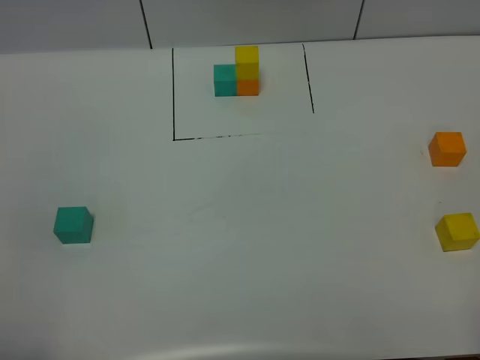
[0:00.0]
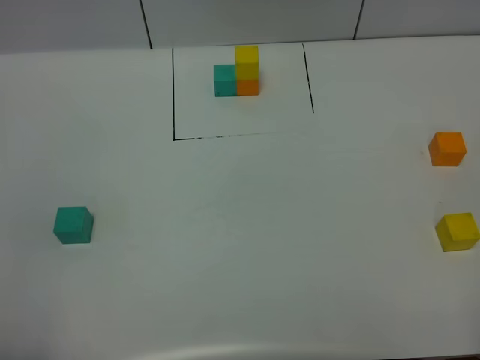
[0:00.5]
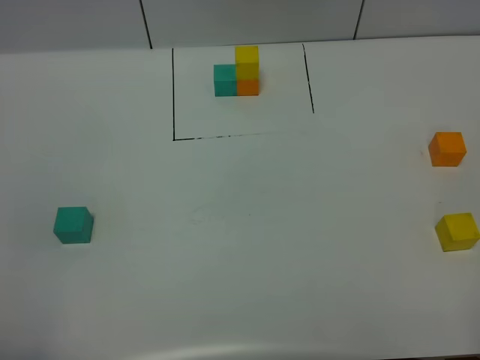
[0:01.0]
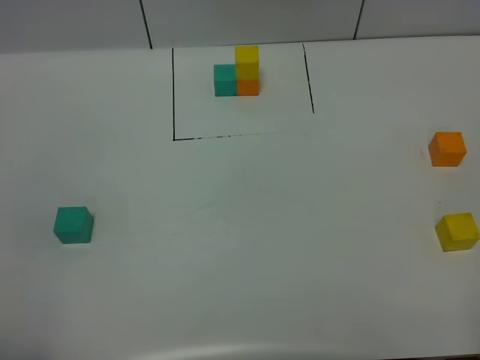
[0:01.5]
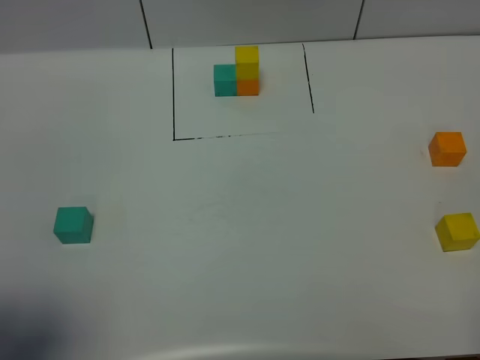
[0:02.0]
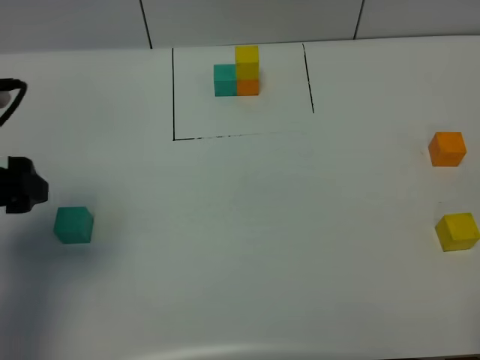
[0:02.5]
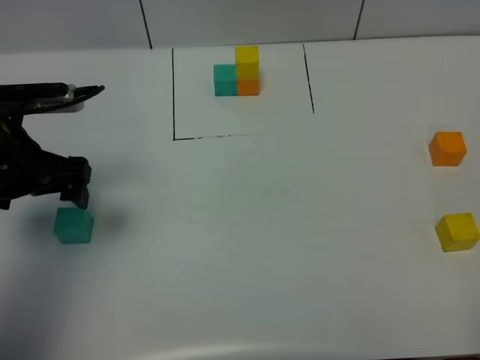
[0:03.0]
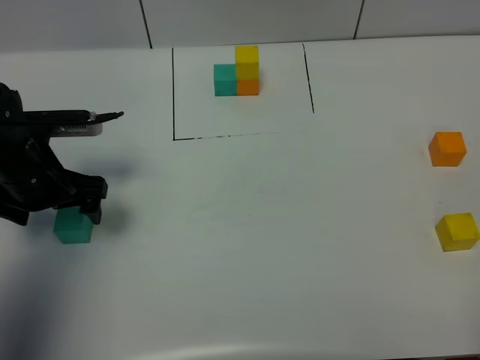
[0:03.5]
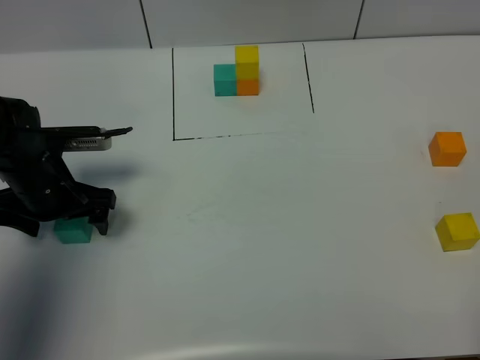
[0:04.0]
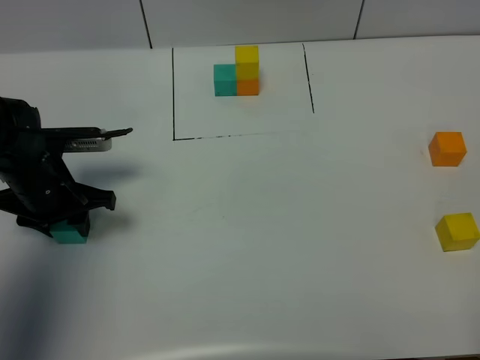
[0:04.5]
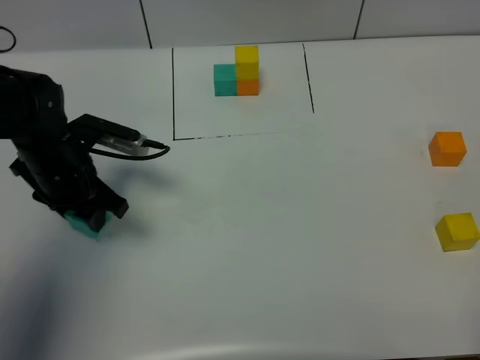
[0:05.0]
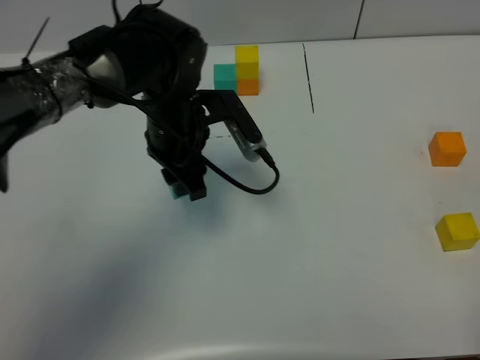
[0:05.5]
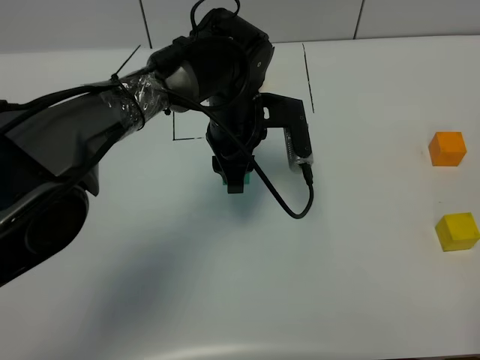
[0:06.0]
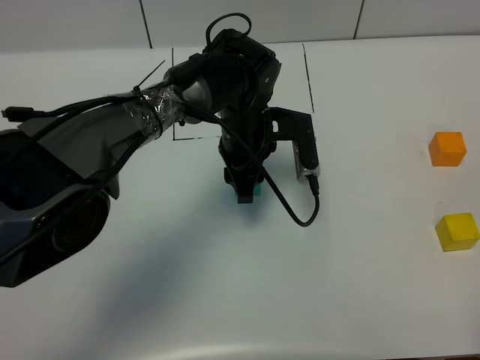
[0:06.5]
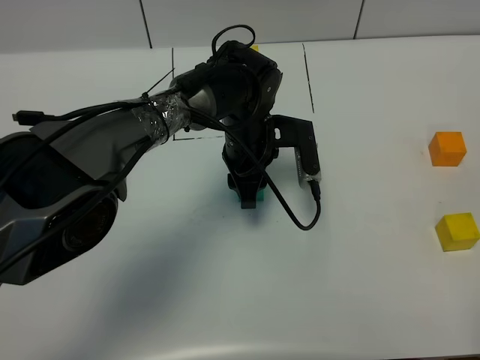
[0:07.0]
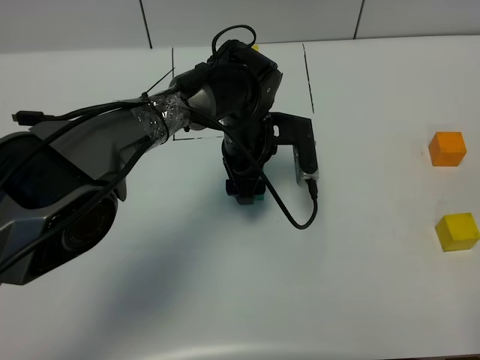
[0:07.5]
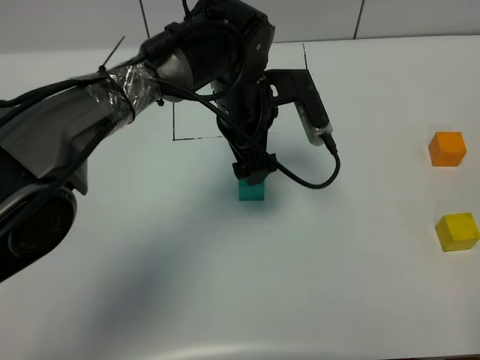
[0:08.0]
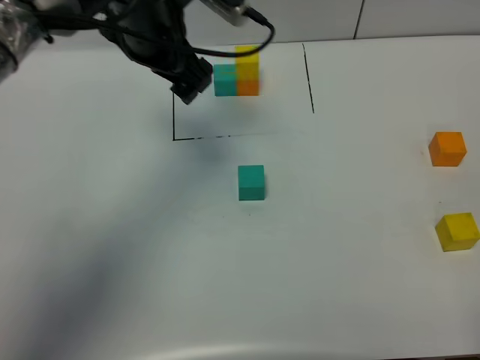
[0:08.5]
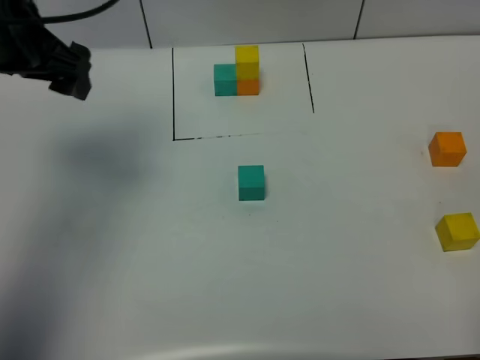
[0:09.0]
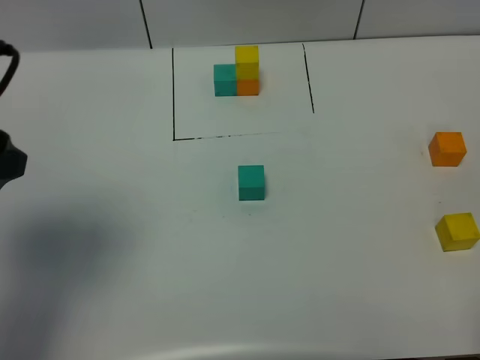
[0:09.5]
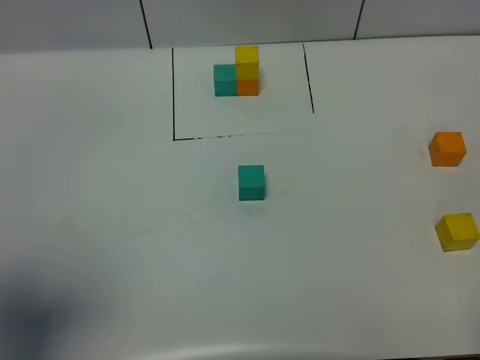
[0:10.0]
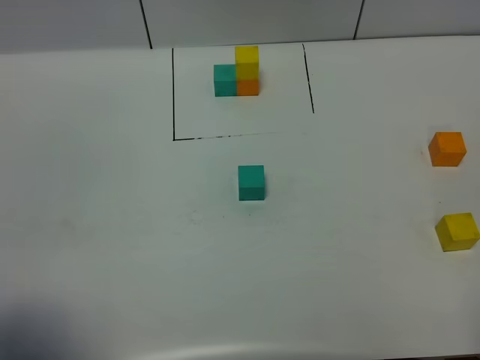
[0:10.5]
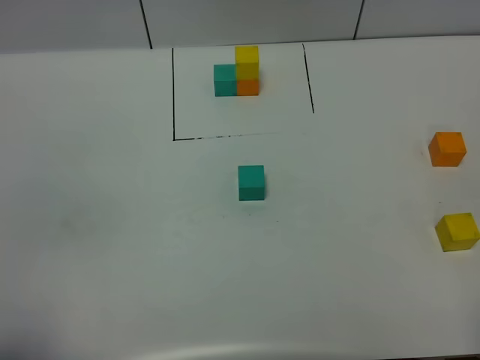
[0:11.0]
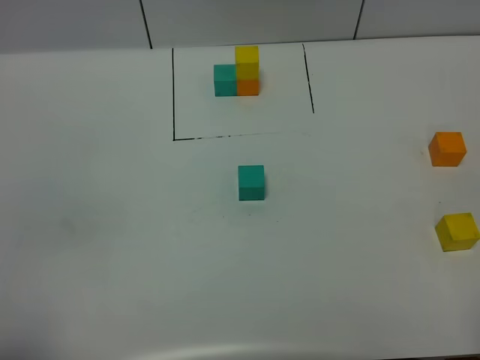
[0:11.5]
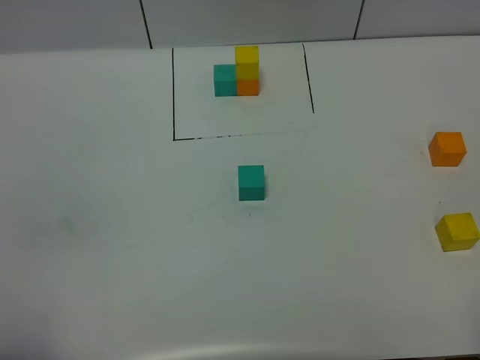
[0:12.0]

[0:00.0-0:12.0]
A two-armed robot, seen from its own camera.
Task of the whole recording: According to the building block template in front, assemble the scattered blocks together.
Step, 0:02.5 to 0:07.5: Put the green cube in the center of the table.
0:00.0 to 0:02.0: The left gripper travels forward by some 10 cm.
0:02.0 to 0:04.0: The left gripper travels forward and downward by approximately 30 cm.
0:04.0 to 0:06.0: The left gripper moves to the right, some 25 cm, and closes.
0:06.0 to 0:08.0: The left gripper opens its fingers.
0:08.0 to 0:10.0: The left gripper is displaced to the left, backward and upward by about 40 cm.
0:10.0 to 0:12.0: The left gripper travels backward and downward by roughly 10 cm, and closes up.

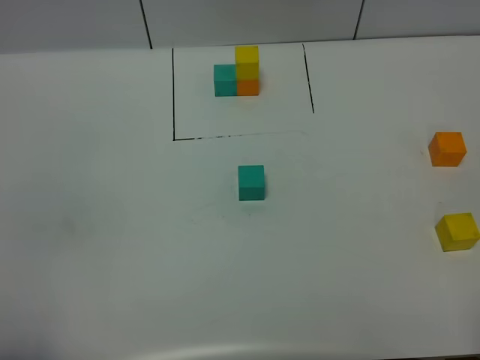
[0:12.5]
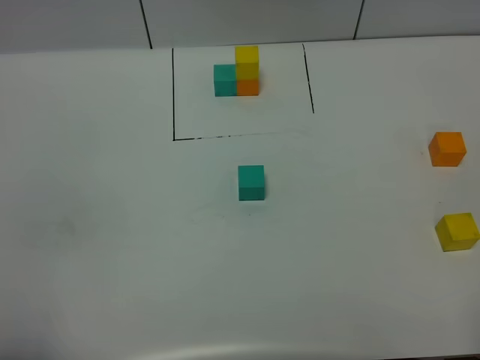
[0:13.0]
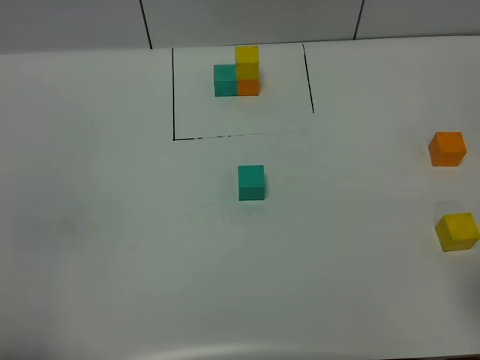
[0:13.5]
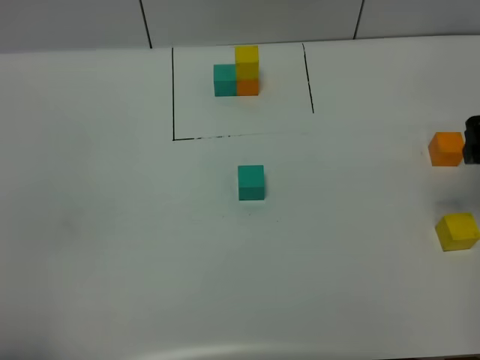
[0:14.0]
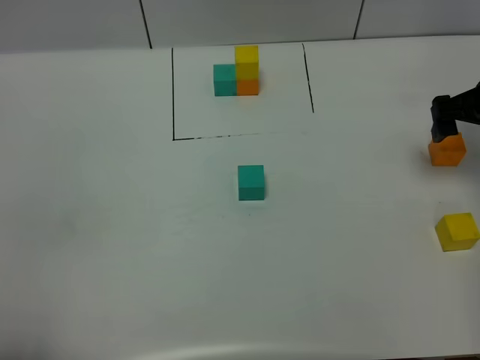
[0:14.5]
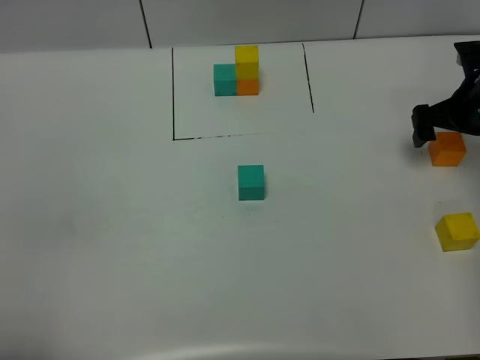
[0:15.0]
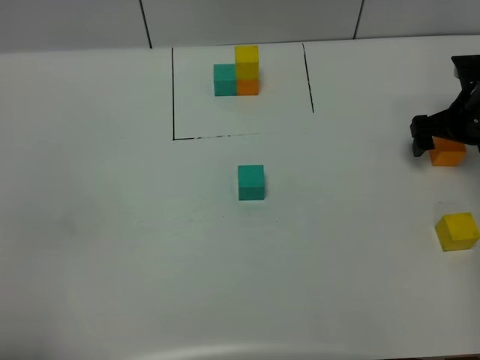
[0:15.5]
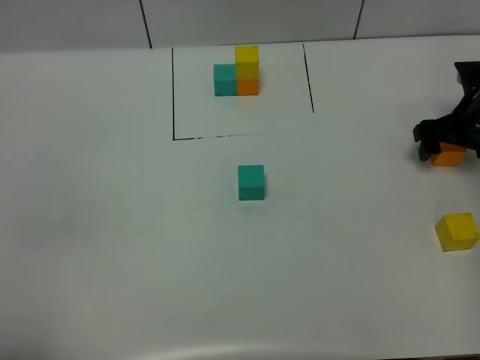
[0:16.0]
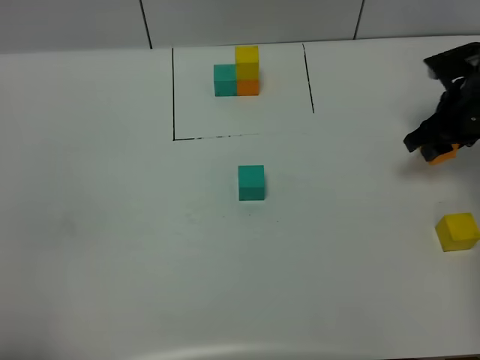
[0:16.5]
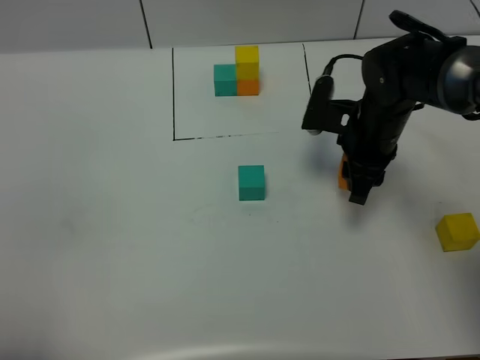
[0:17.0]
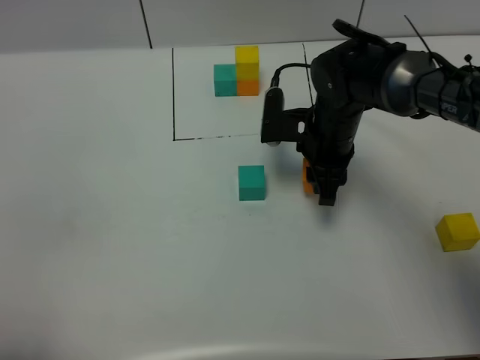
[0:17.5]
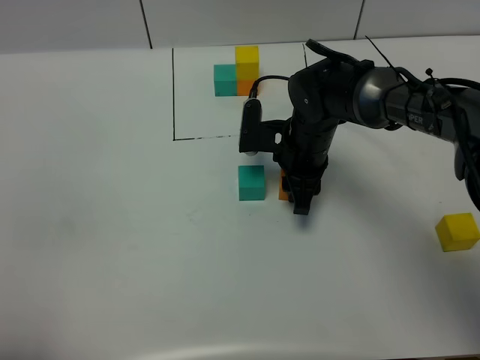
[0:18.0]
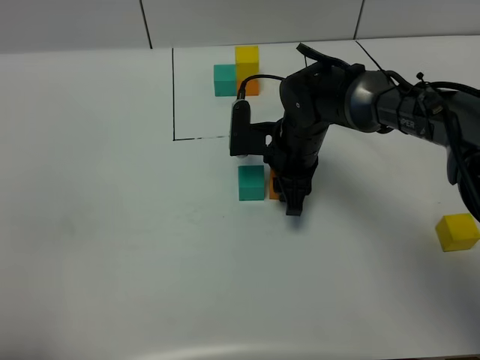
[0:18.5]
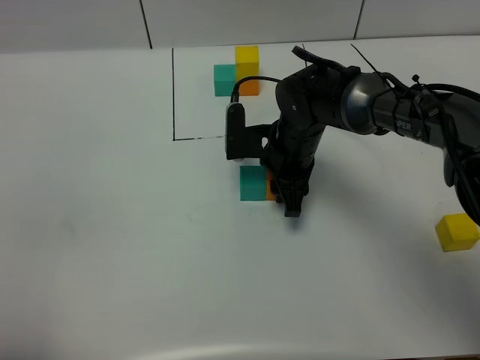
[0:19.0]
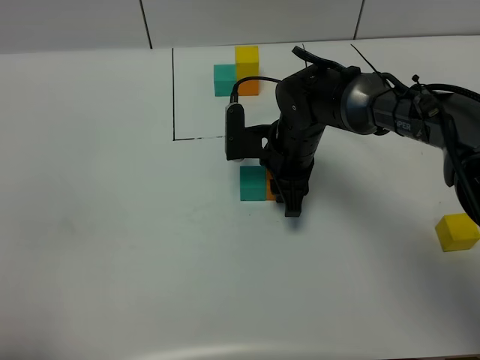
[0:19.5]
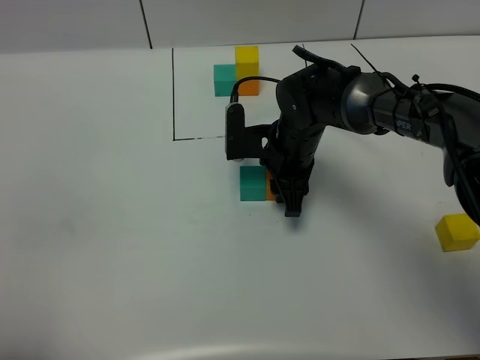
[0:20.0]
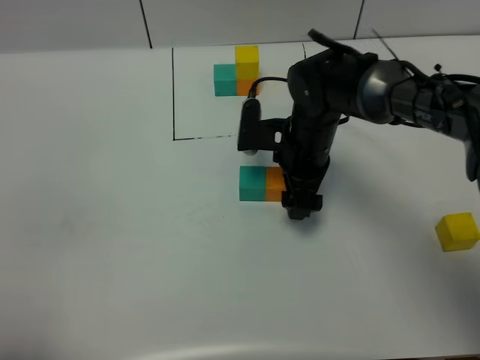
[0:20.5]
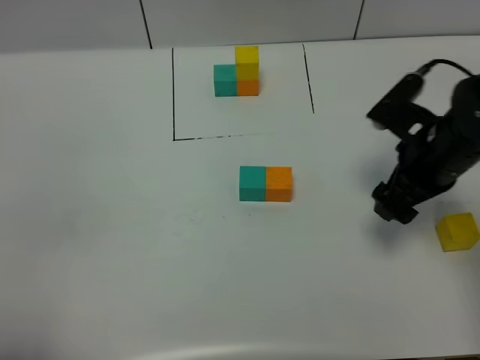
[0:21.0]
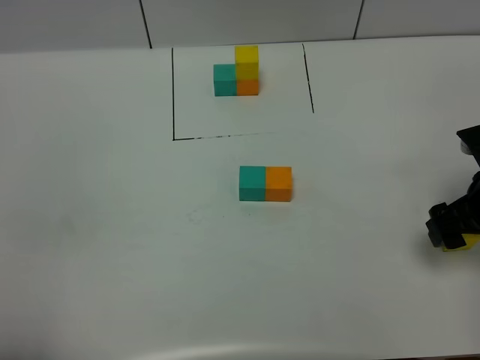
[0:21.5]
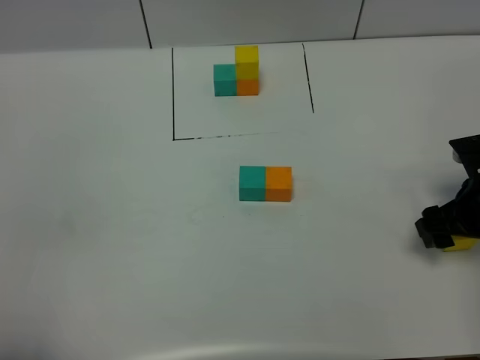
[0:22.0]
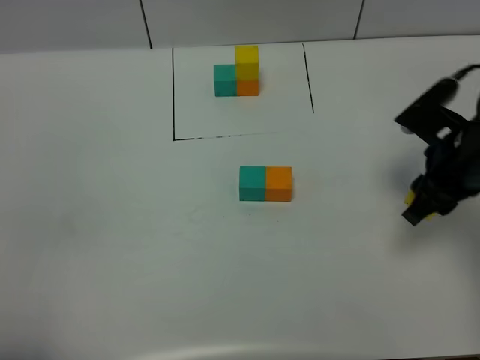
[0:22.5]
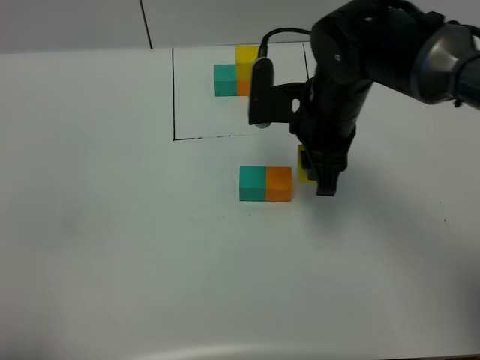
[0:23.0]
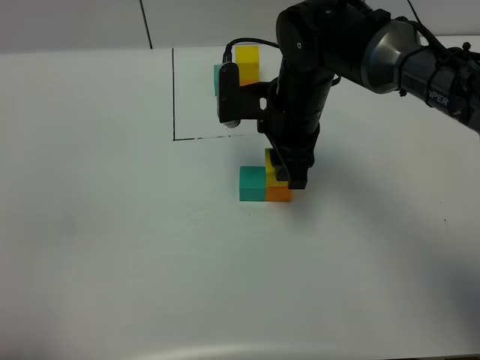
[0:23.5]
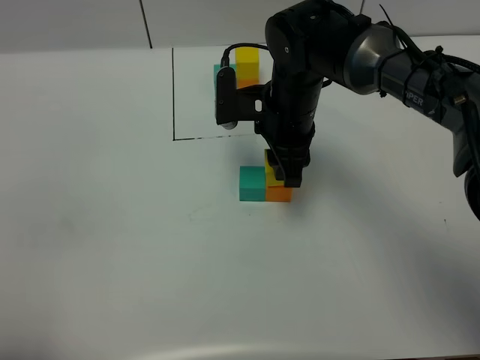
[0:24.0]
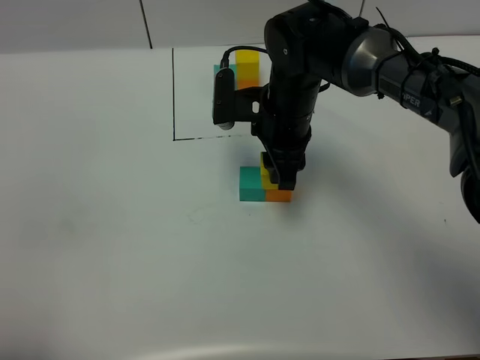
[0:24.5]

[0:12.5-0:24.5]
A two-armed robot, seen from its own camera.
Task of the whole recording: According to the building block template in front, assemble the scattered blocks together.
Step, 0:12.5 to 0:20.0: Put the orange cube on the right of the green cube.
0:12.5 to 0:14.5: The right gripper shifts roughly 40 cm forward.
0:14.5 to 0:16.5: The right gripper ends up roughly 5 cm from where it was, and closes its fingers.
0:16.5 to 0:18.5: The right gripper travels to the left by about 20 cm.
0:18.5 to 0:20.5: The right gripper opens its fingers.
0:20.5 to 0:22.5: The right gripper travels to the right, backward and upward by roughly 15 cm, and closes its fingers.
0:22.5 to 0:24.5: The right gripper shifts some 20 cm to the left and forward.

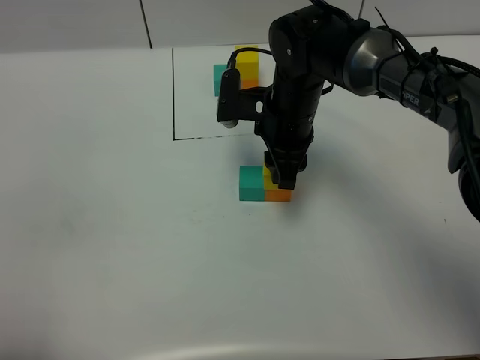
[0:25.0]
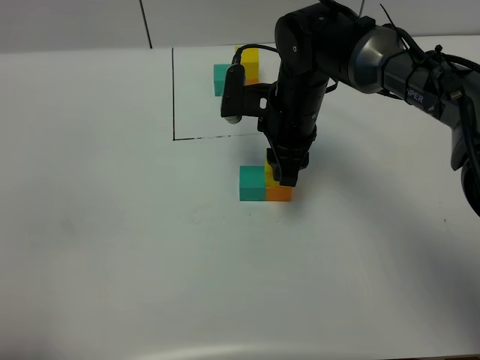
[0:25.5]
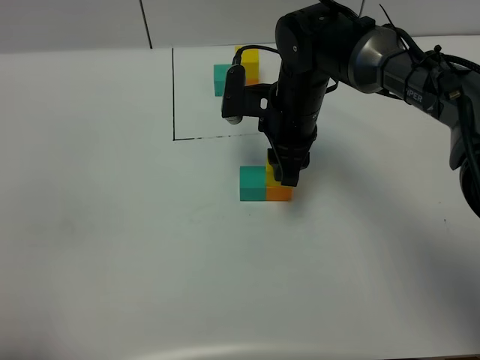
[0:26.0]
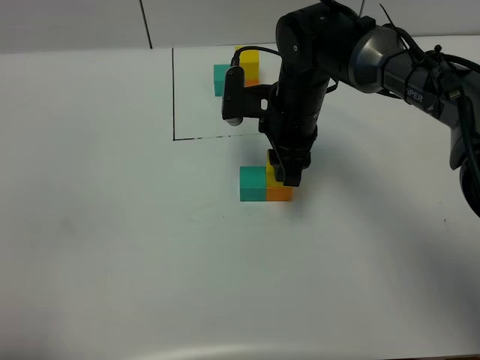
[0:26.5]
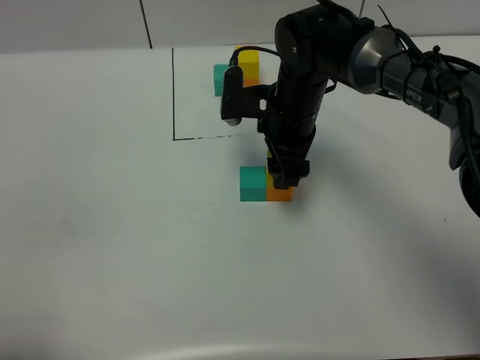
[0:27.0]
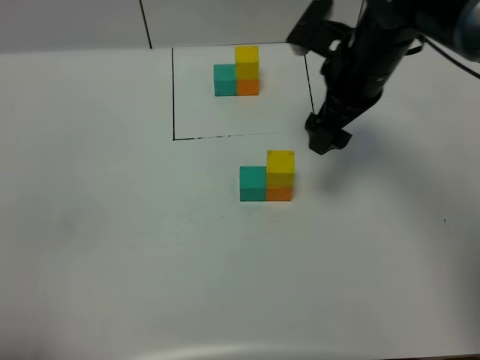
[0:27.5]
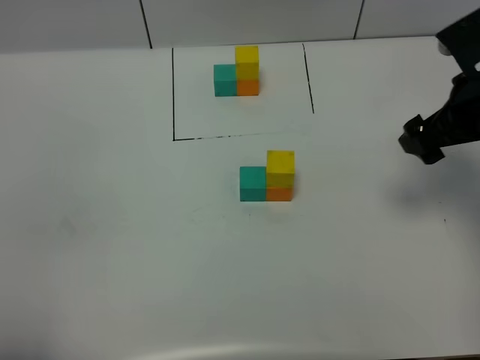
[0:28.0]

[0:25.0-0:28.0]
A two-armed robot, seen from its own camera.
Task of the whole recording: According to the building block template in front, assemble the scattered blocks together.
Step, 0:25.0 to 0:27.0: Put the yellow cube on the orange cube.
0:25.0 to 0:26.5: Neither gripper changes place.
0:26.5 to 0:28.0: The right gripper heads to the right, covering some 20 cm, and opens up.
